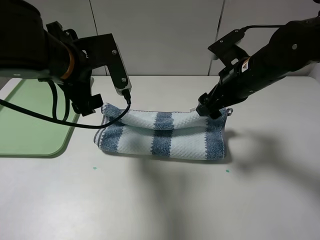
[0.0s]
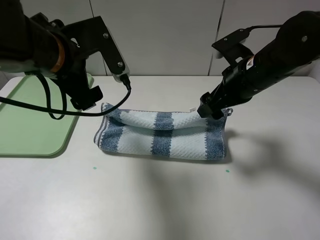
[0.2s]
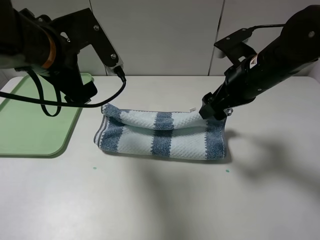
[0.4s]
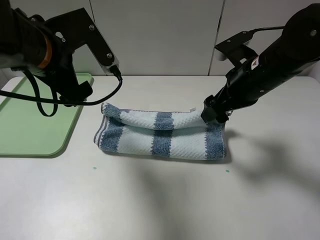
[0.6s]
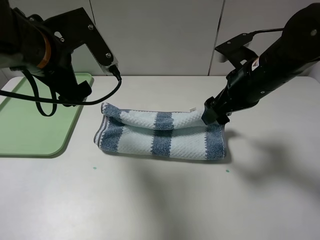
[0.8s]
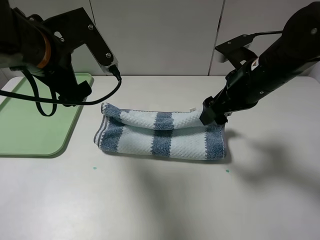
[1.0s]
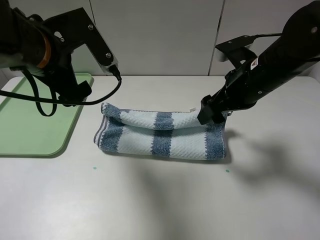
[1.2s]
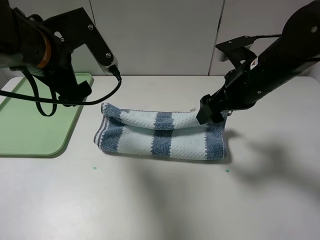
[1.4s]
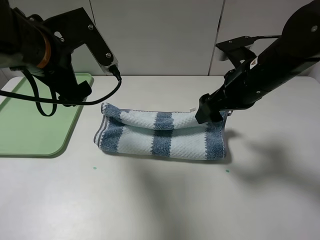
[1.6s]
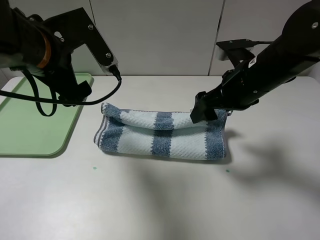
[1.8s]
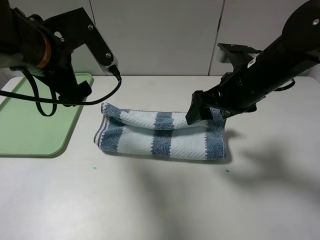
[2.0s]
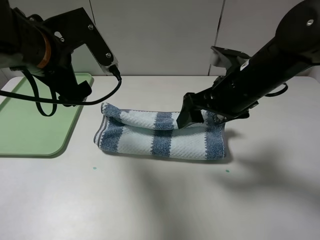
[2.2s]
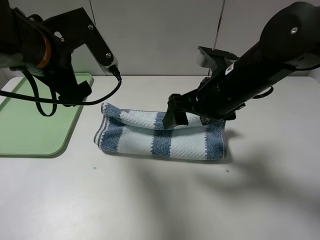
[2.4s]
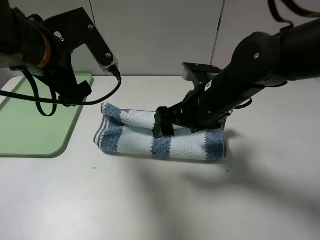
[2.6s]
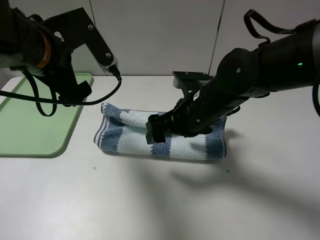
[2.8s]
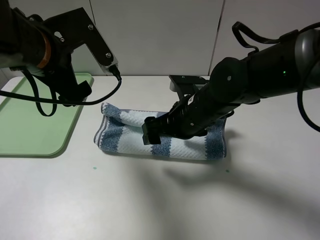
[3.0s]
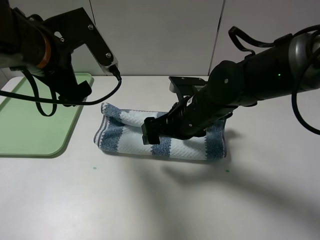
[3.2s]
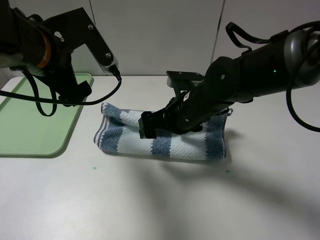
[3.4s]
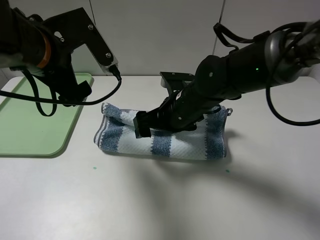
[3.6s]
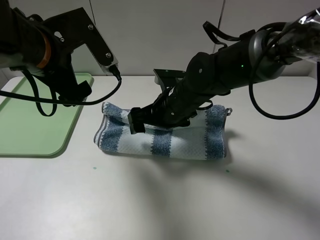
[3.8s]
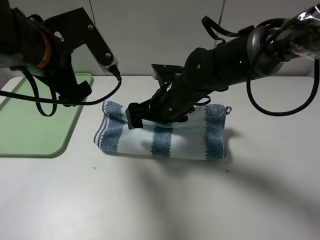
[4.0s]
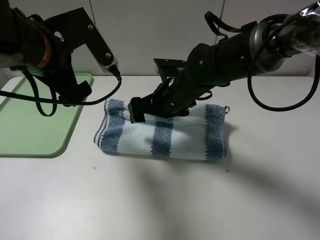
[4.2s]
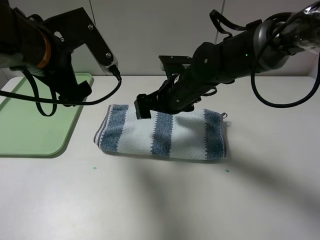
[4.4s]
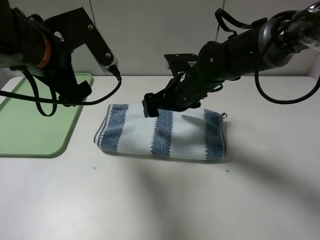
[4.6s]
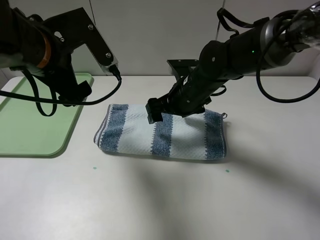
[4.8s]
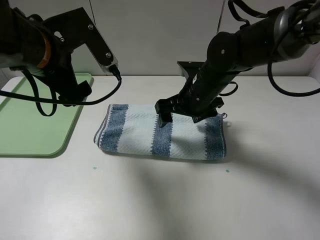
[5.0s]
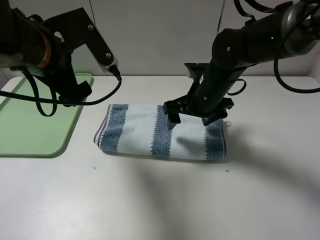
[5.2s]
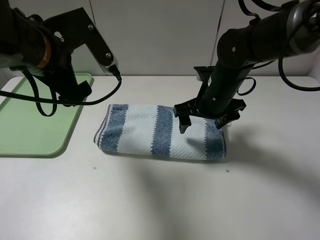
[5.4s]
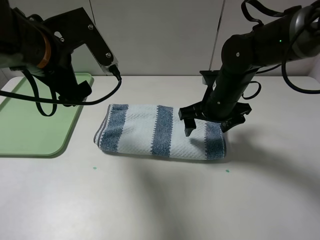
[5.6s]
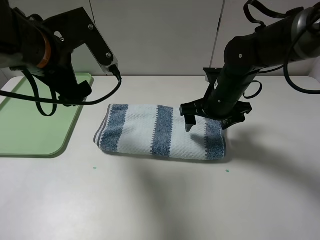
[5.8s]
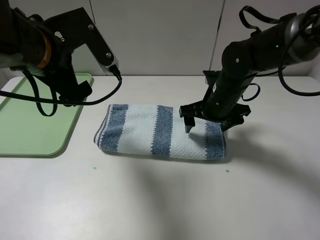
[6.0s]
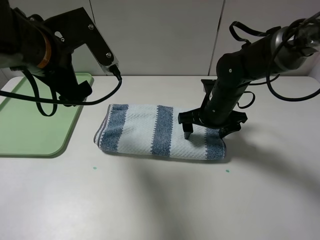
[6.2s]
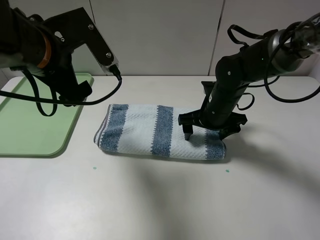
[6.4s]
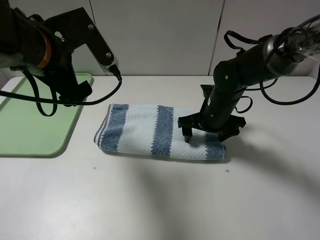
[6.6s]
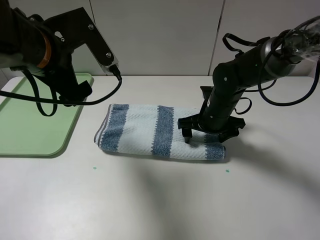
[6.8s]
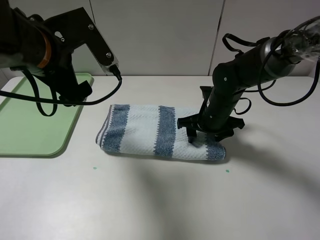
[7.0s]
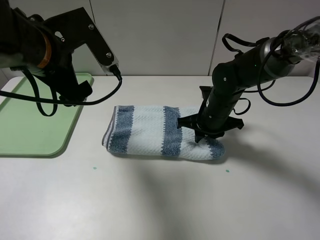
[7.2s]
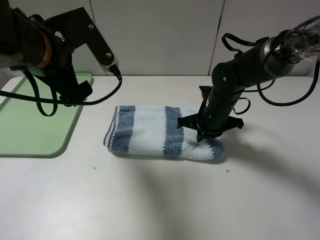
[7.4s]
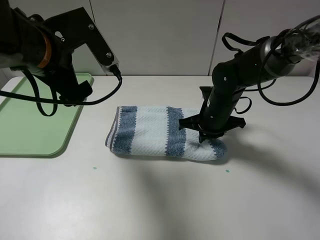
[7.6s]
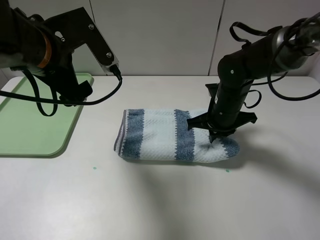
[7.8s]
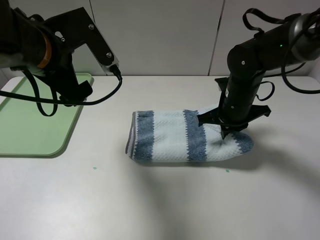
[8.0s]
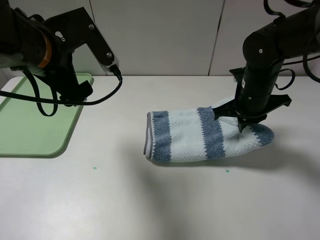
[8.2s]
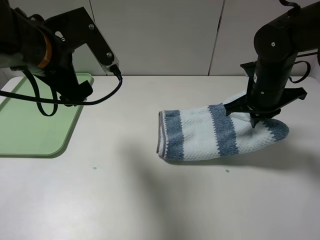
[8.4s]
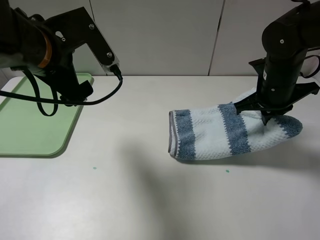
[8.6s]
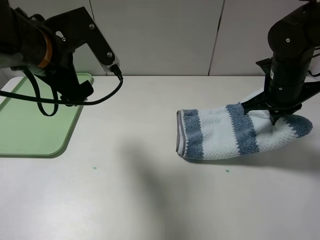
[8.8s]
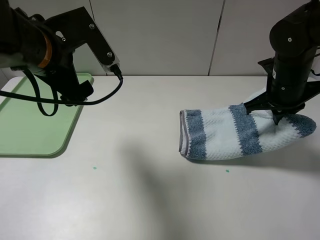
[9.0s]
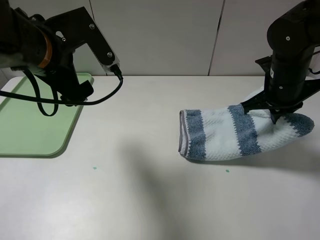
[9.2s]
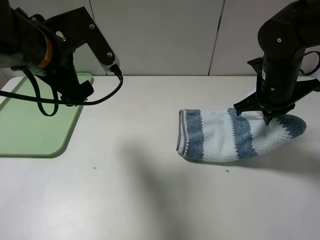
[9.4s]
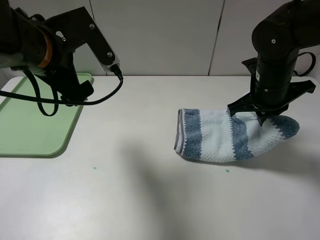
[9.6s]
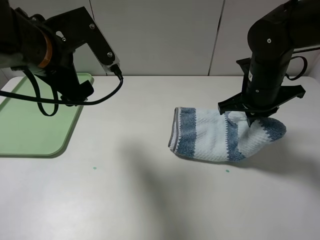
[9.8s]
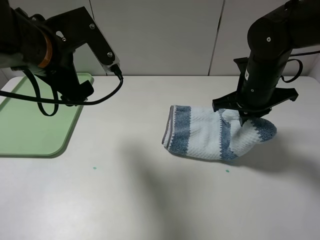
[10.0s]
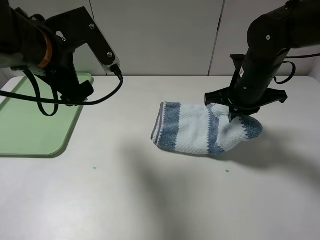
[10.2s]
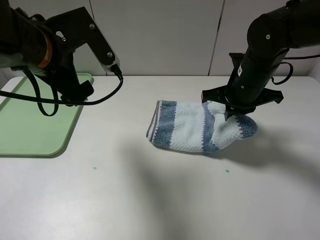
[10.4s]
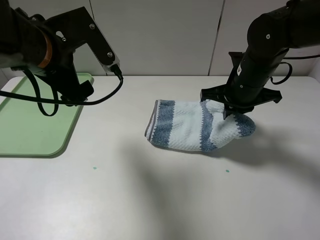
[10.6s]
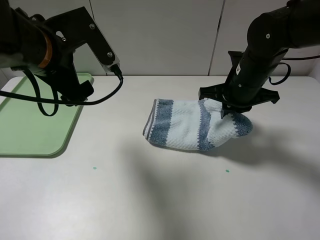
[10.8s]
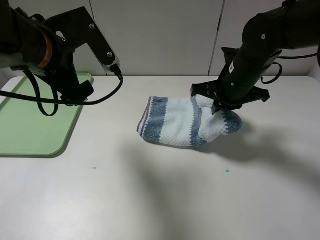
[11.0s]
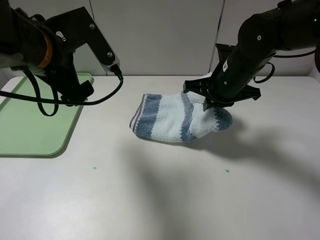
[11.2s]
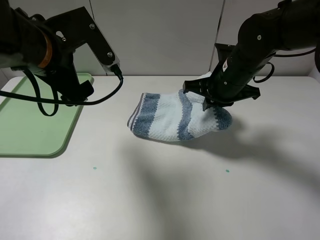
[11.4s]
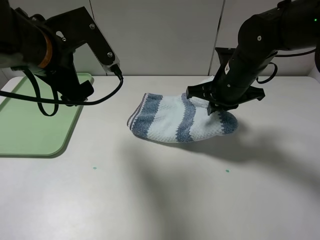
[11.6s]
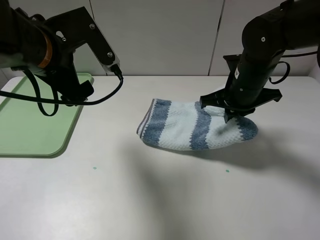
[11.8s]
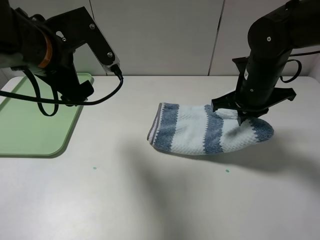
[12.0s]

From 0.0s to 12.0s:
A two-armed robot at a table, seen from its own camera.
Step, from 0.4s to 7.4s: Grasp the blue white towel with the right gripper.
From 0.0s to 1.6s: There are only small adjustments of the grippers.
From 1.6s to 3.0s: The right gripper heads to the left and downward, covering roughly 10 cm.
From 3.0s to 4.4s: The right gripper goes about 5 cm forward.
From 4.4s to 6.0s: The right gripper travels to the right by approximately 10 cm.
From 6.0s to 7.6s: The right gripper closes up.
From 7.6s to 9.0s: The right gripper moves to the right and upward, approximately 15 cm.
From 9.0s to 10.4s: The right gripper heads to the left, covering roughly 5 cm.
From 10.4s to 12.0s: The grippers make only small movements.

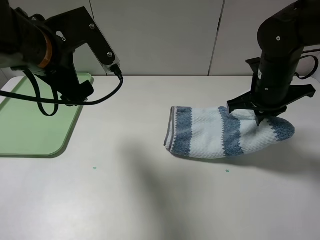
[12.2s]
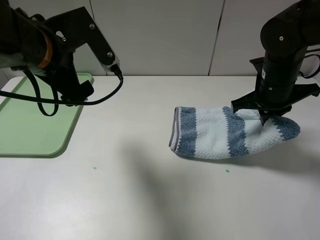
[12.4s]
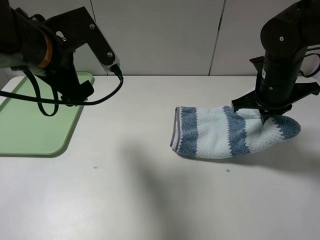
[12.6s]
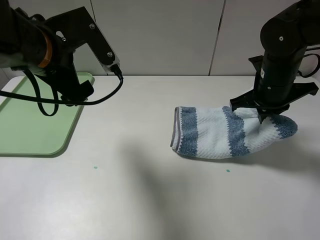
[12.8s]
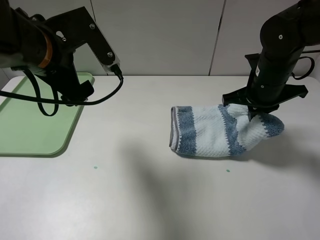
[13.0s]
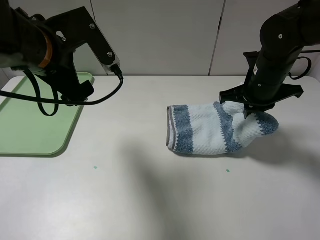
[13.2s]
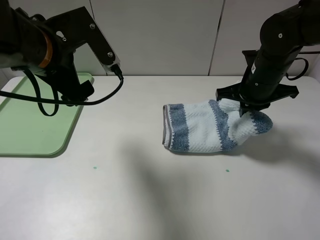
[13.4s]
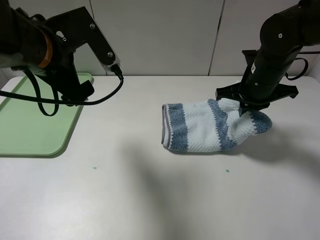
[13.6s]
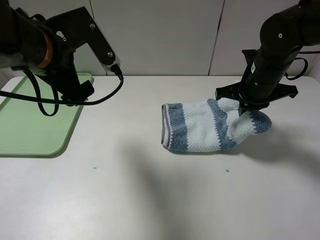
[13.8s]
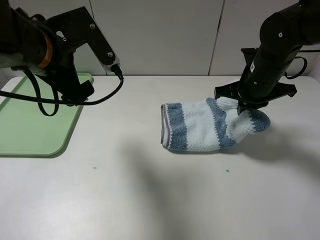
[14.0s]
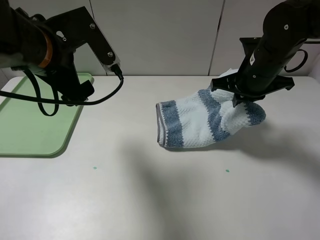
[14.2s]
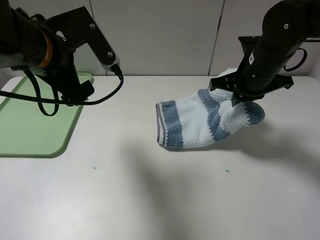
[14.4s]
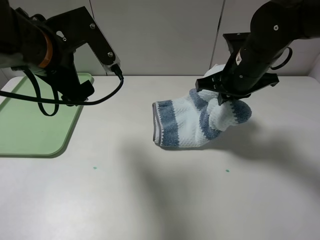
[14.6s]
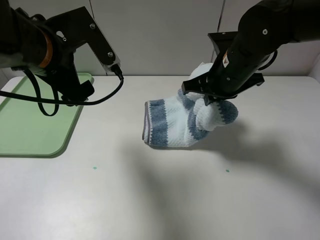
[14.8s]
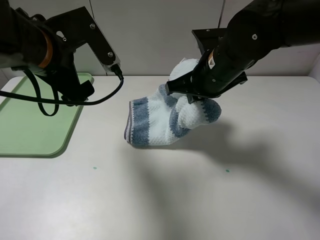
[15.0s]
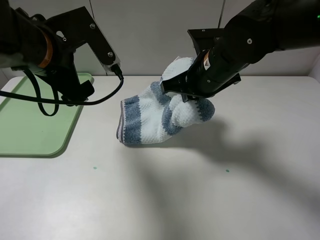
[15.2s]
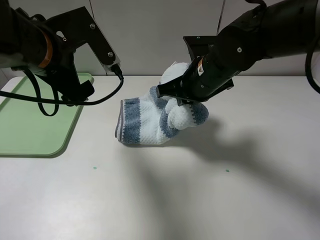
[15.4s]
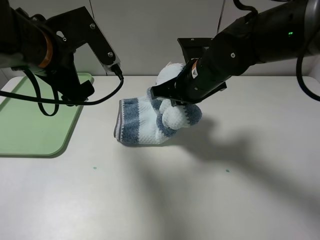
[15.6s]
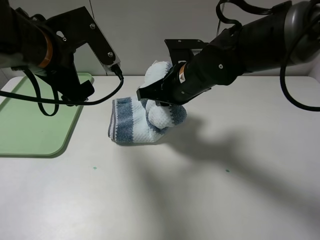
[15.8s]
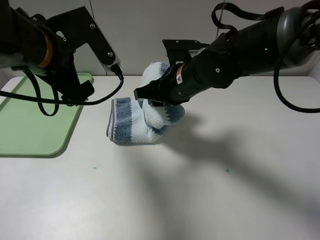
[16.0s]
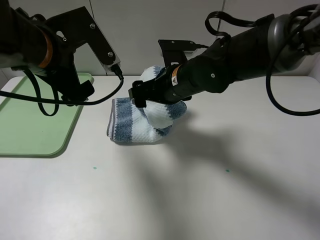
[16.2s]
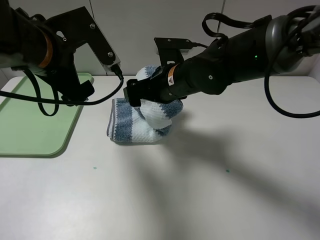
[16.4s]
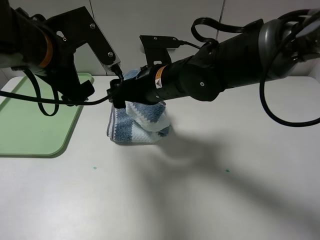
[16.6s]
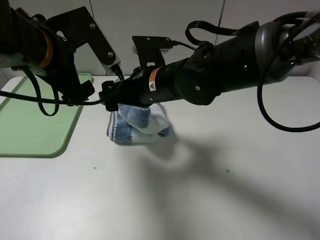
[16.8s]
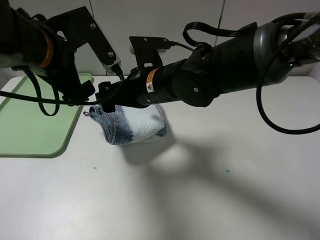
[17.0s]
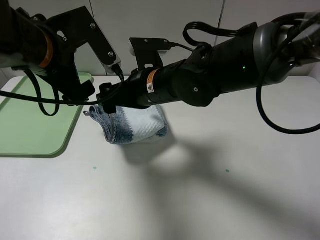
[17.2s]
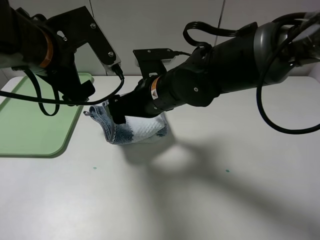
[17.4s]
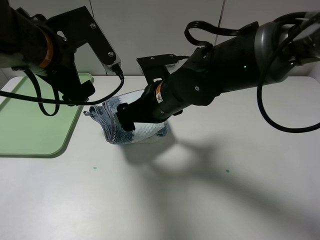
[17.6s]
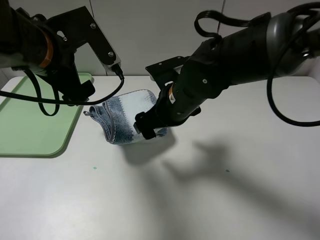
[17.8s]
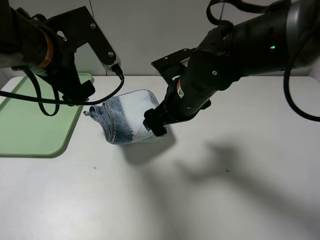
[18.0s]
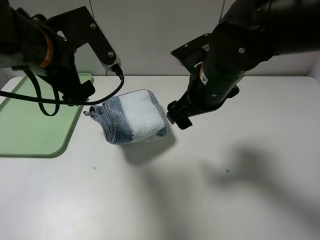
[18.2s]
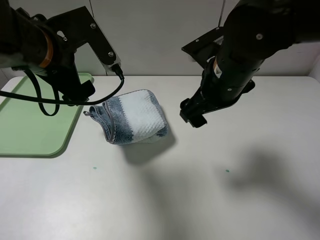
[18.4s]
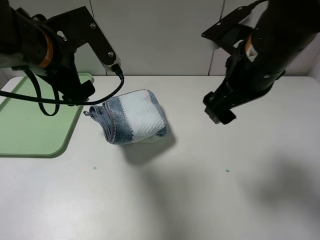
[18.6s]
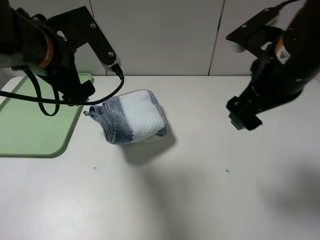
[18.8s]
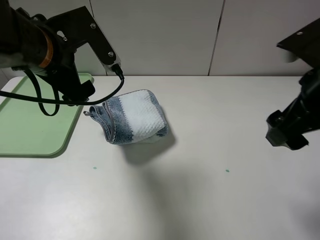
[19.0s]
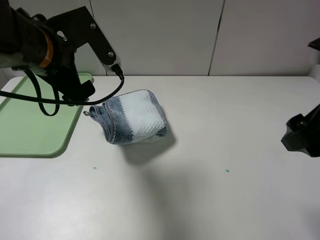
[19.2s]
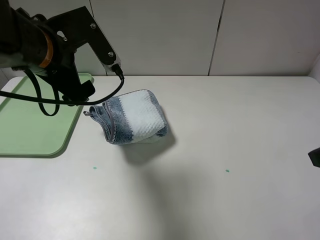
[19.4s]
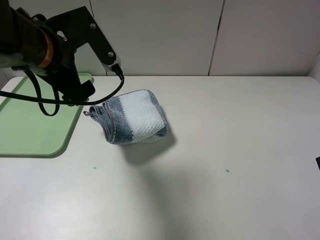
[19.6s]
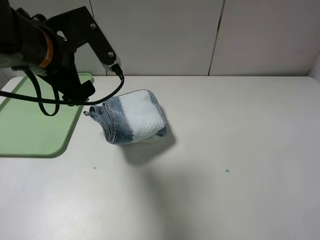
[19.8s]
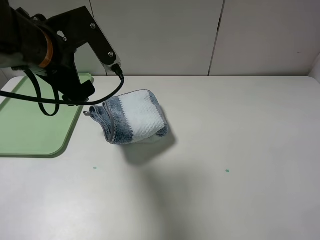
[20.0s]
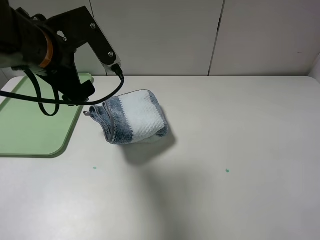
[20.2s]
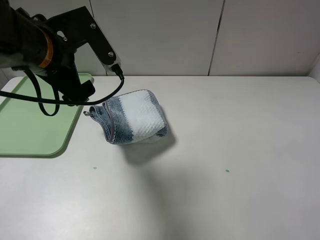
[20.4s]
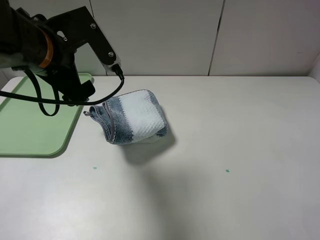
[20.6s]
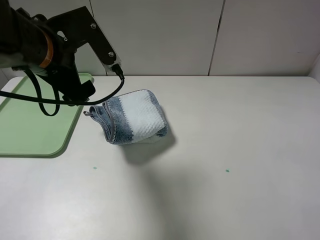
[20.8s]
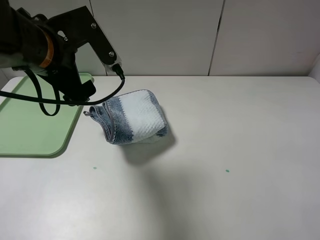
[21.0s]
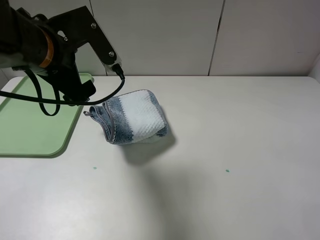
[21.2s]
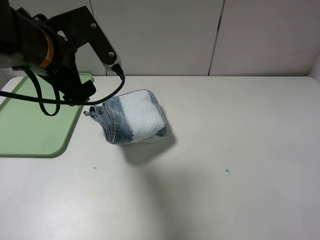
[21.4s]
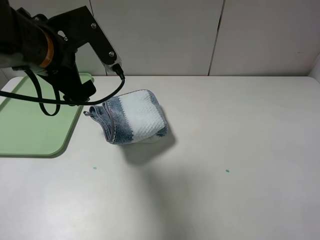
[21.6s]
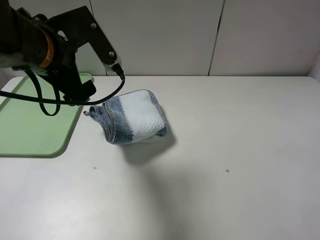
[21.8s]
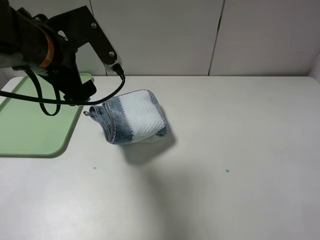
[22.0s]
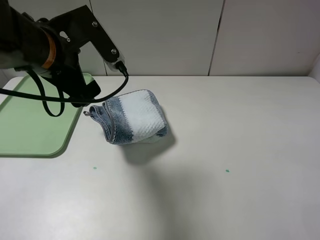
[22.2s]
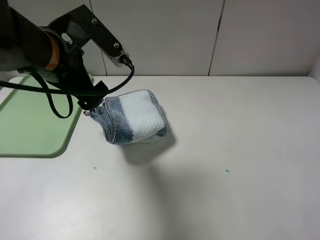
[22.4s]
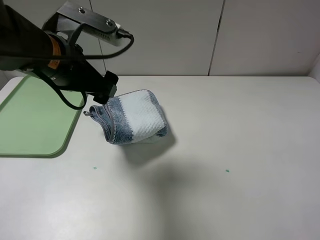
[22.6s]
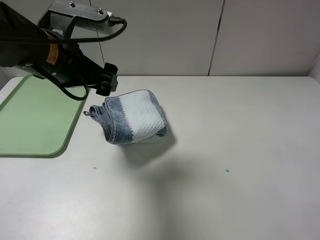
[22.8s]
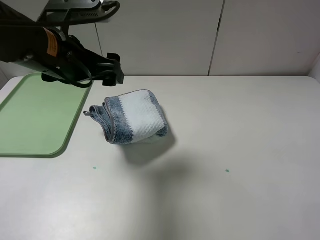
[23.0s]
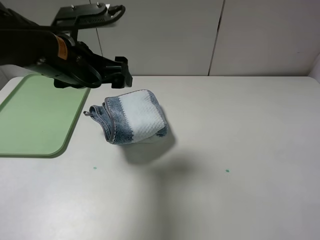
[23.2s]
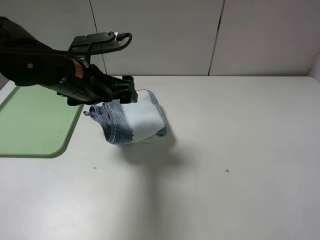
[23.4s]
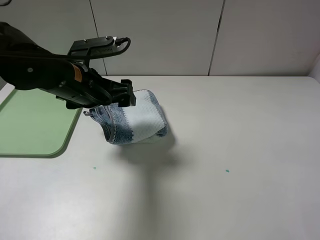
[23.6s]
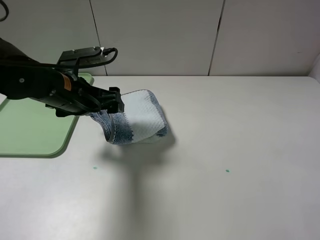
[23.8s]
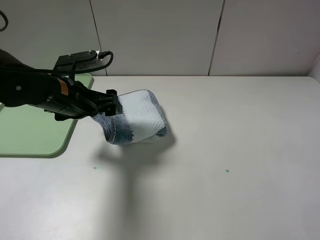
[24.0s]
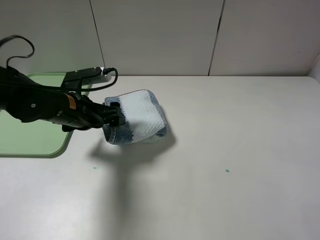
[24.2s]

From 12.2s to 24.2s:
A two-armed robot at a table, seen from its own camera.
Step, from 12.2s to 17.2s: Fold the blue white towel from right to left with right gripper.
From 12.2s to 13.8s: The grippers stay close to where they were, moving slightly.
From 13.8s to 15.2s: The right gripper is displaced to the left by about 10 cm.
From 15.2s to 16.6s: The right gripper is displaced to the left by roughly 10 cm, and opens.
From 16.6s to 18.2s: The right gripper heads to the right, covering approximately 10 cm.
From 18.2s to 19.8s: The right gripper goes some 30 cm to the right and backward.
From 22.6s to 24.2s: The left gripper goes about 15 cm downward.
